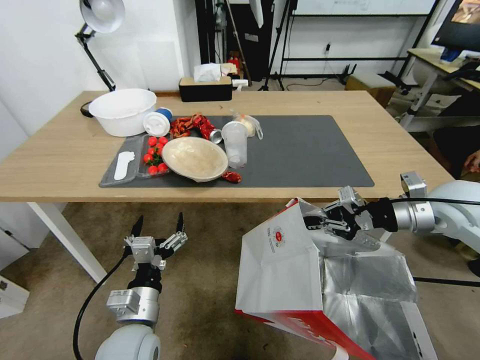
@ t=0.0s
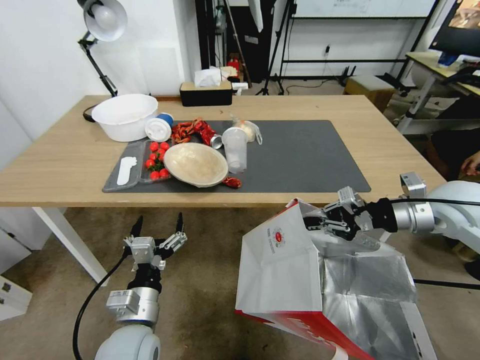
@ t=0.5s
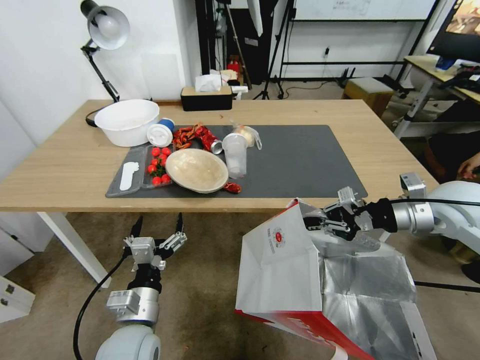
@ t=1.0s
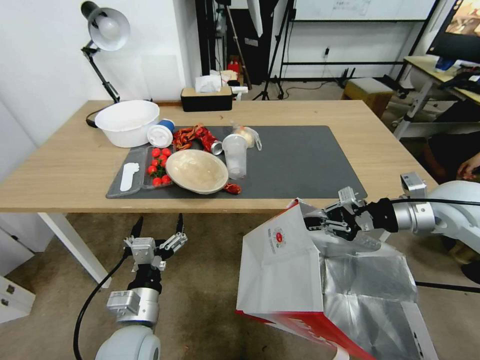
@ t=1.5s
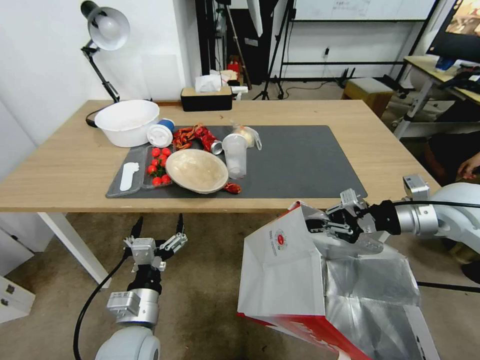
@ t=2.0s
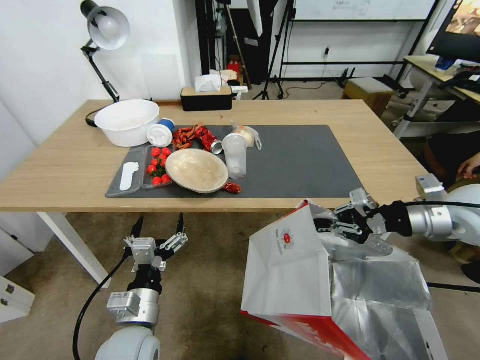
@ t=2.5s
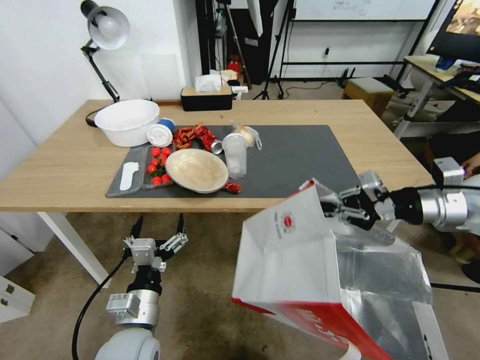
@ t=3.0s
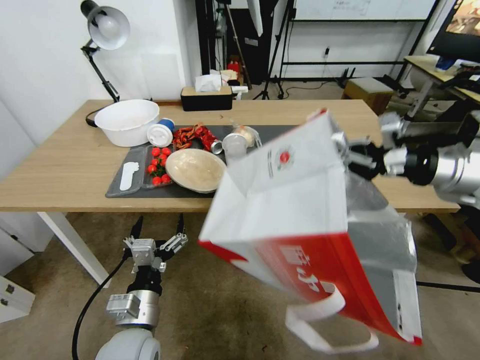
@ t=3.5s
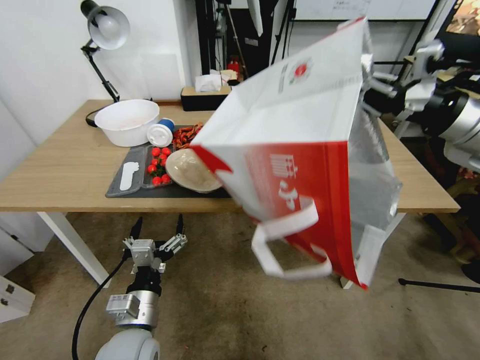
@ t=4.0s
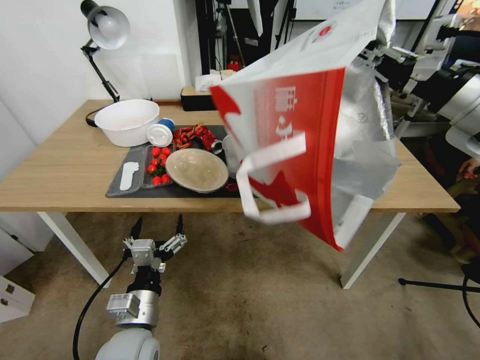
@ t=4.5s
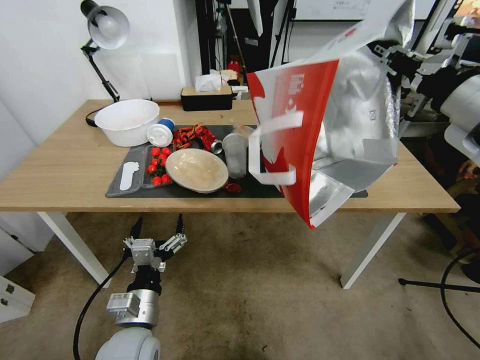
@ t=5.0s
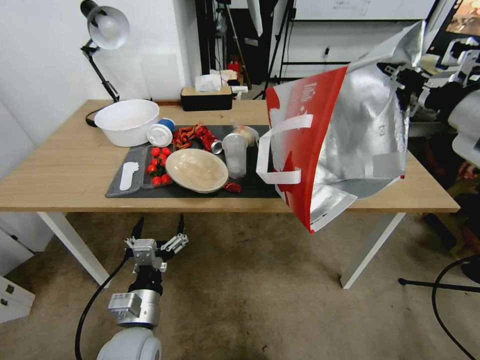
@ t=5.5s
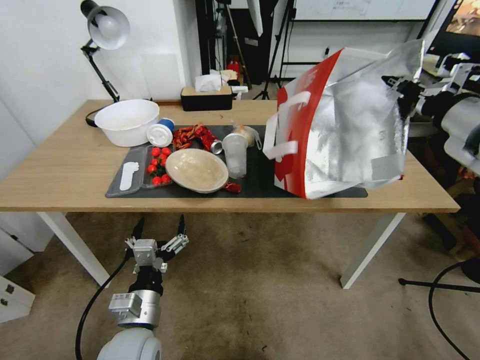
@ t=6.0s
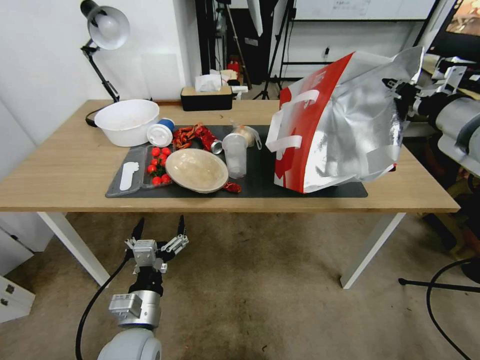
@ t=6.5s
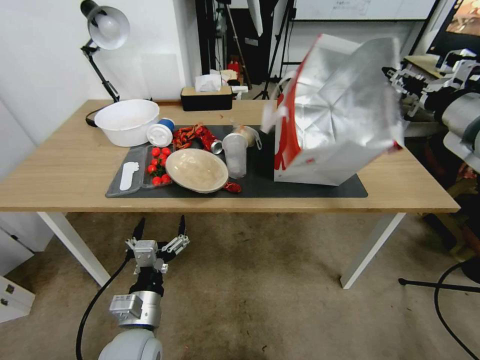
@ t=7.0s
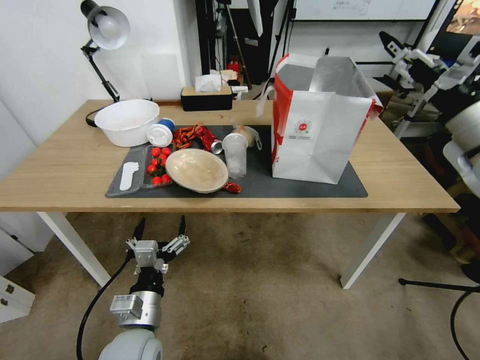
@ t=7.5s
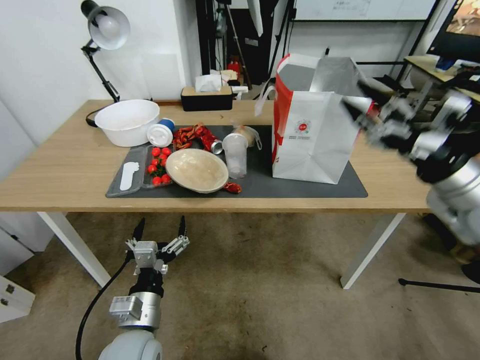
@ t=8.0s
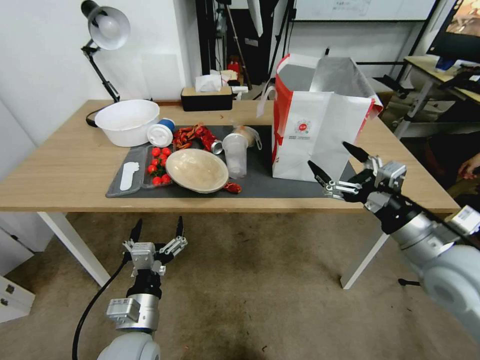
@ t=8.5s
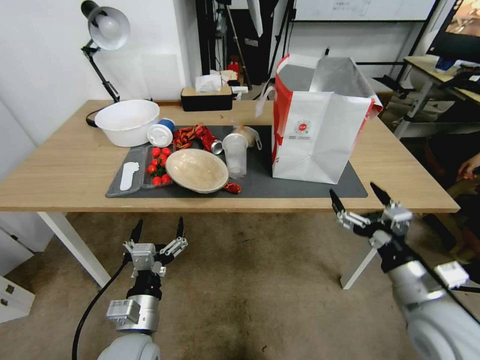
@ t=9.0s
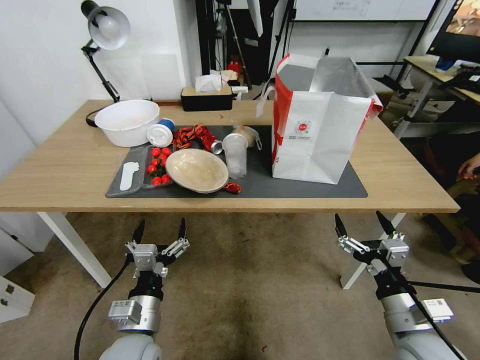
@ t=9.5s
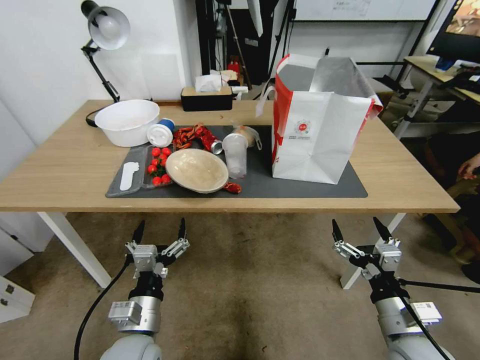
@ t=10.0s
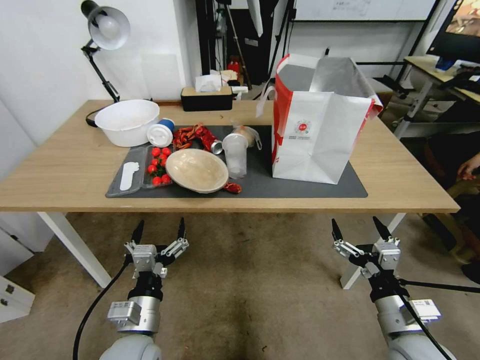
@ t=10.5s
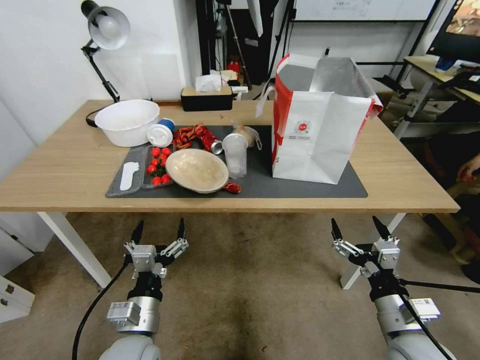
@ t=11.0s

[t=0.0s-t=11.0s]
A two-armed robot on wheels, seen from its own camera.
Task of the whole recording: Pick up the food delivery bag from the floor and place it on the table.
t=2.0s to t=3.5s: The right gripper goes approximately 10 cm upward.
t=3.5s to t=5.5s: The right gripper goes about 5 cm upward.
t=5.5s to t=7.5s: The right gripper shifts by about 5 cm, and opens its fingers.
t=7.5s to t=9.0s: The right gripper travels downward and backward by approximately 25 cm.
t=9.0s to t=11.0s: The right gripper shifts some 5 cm downward.
